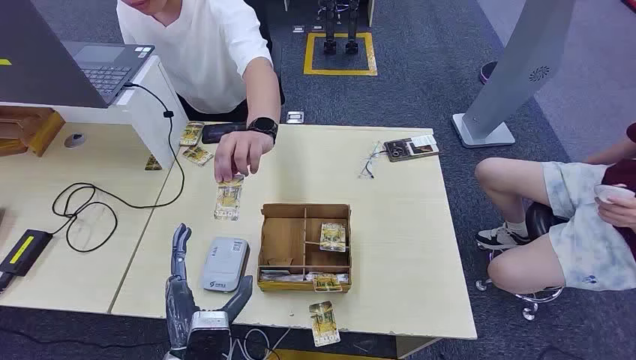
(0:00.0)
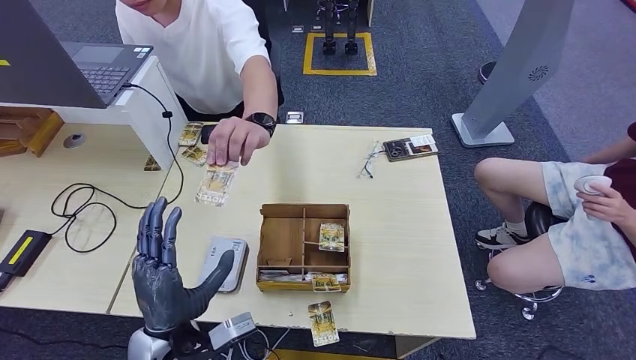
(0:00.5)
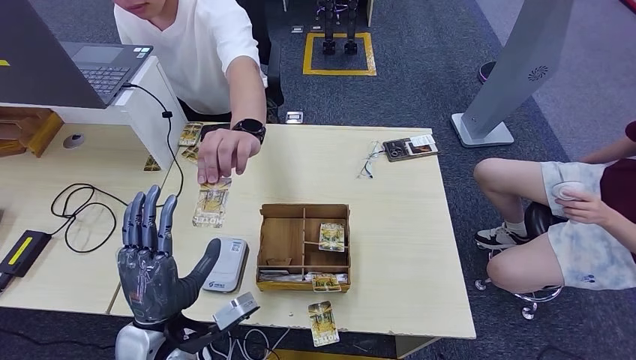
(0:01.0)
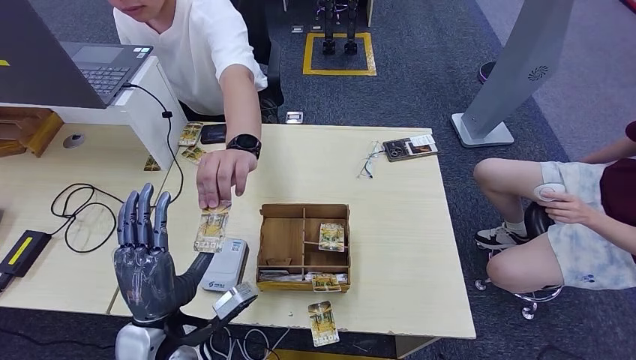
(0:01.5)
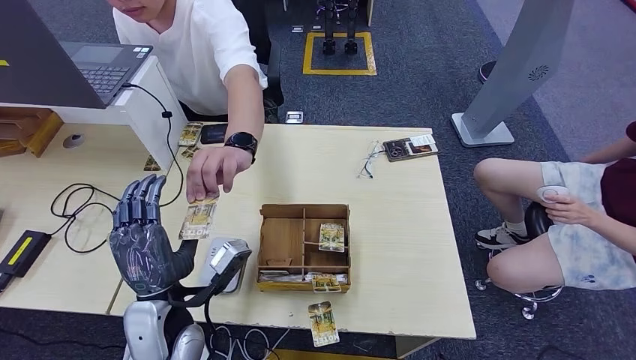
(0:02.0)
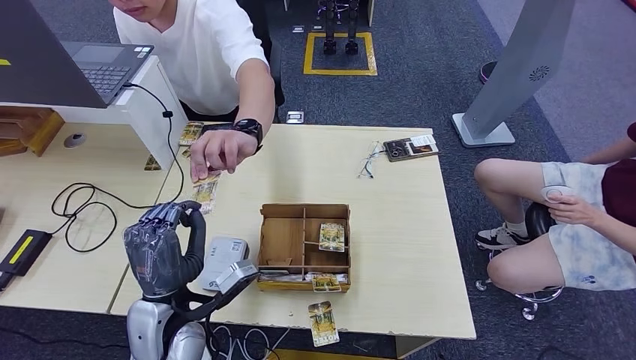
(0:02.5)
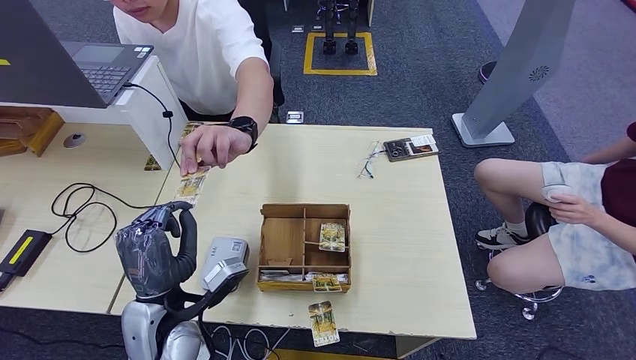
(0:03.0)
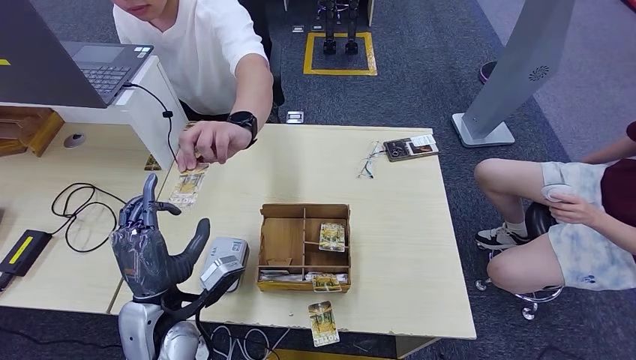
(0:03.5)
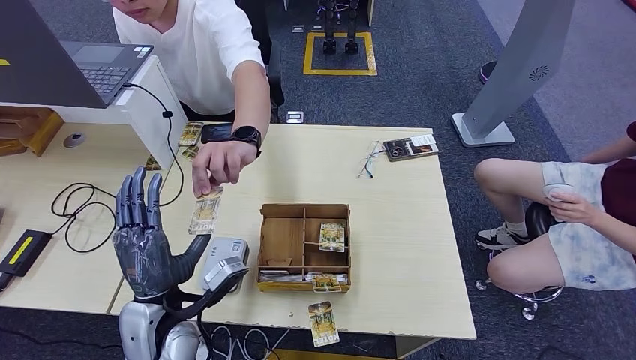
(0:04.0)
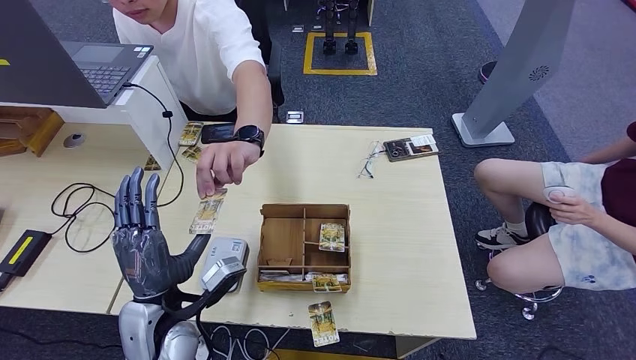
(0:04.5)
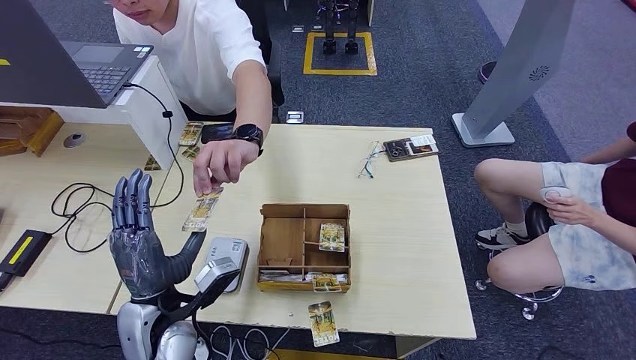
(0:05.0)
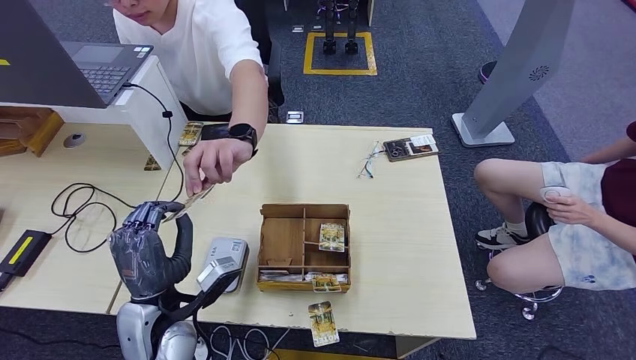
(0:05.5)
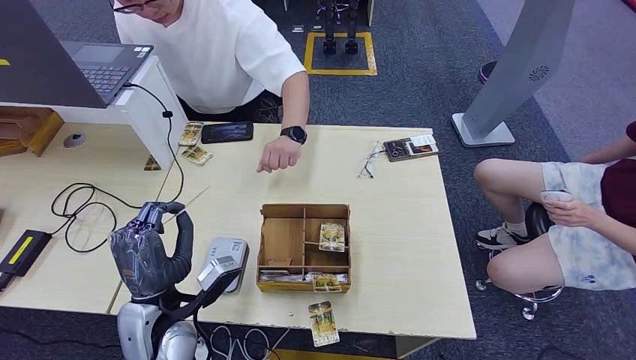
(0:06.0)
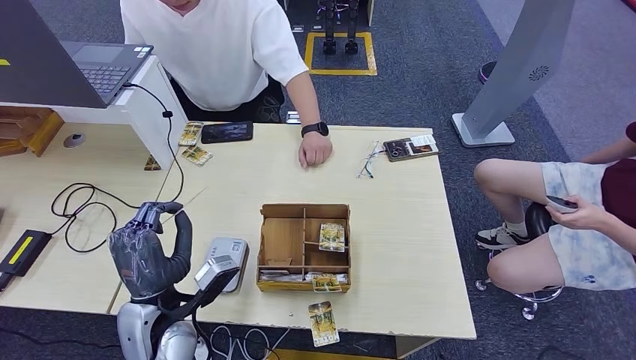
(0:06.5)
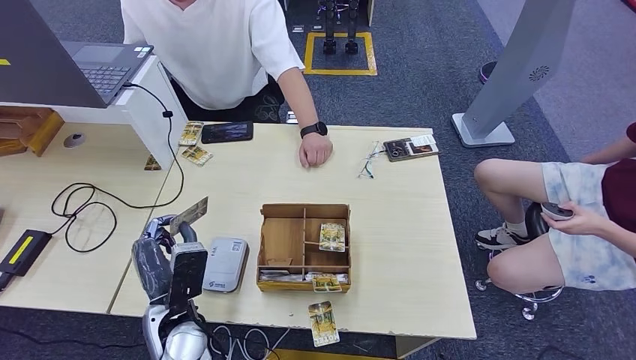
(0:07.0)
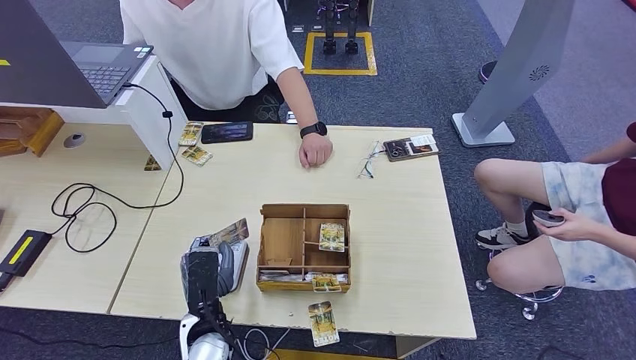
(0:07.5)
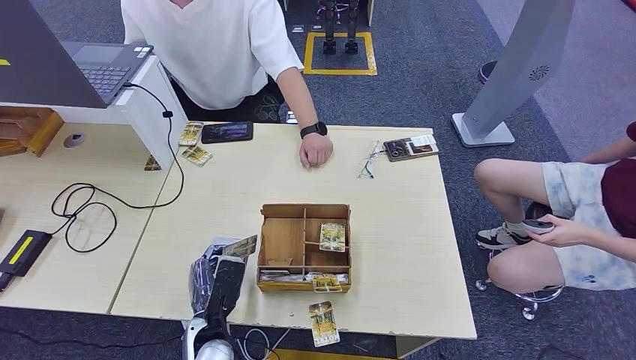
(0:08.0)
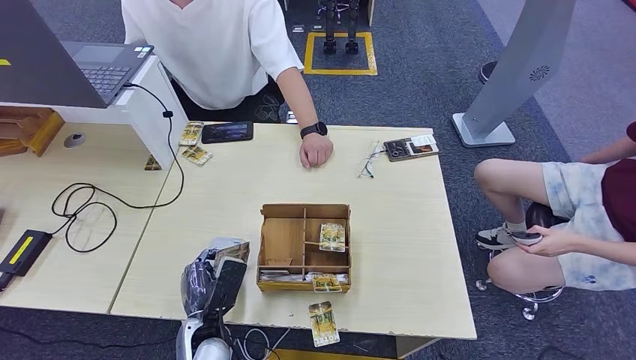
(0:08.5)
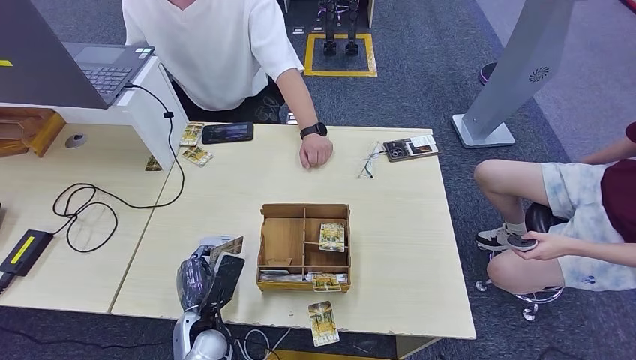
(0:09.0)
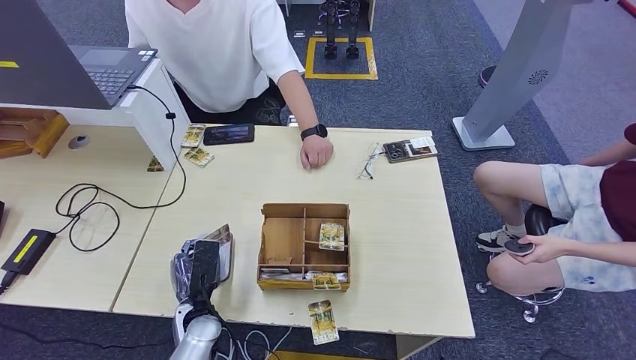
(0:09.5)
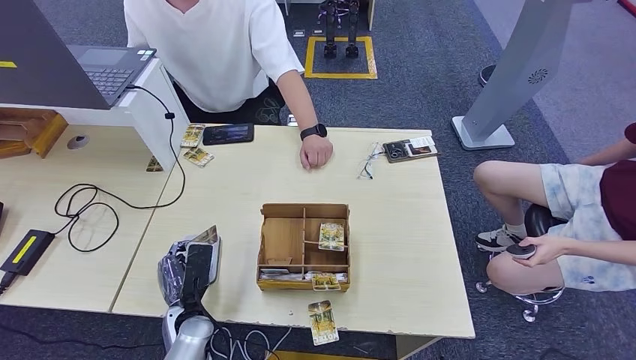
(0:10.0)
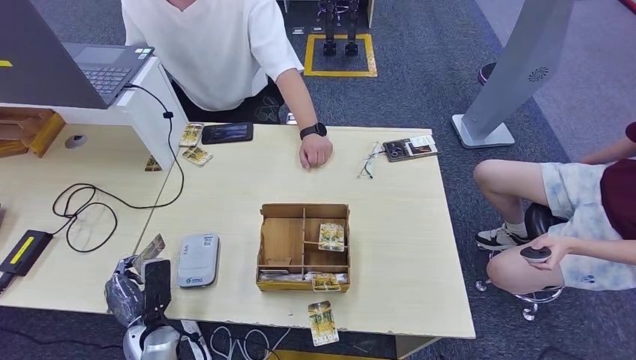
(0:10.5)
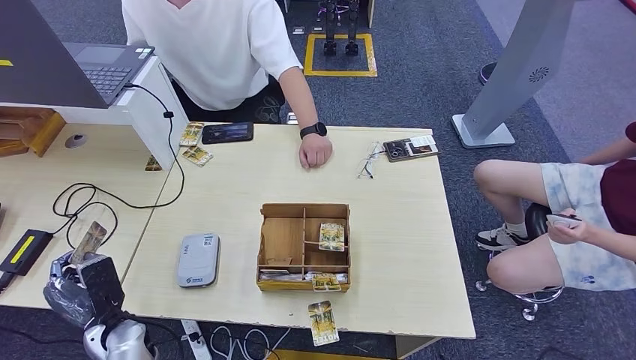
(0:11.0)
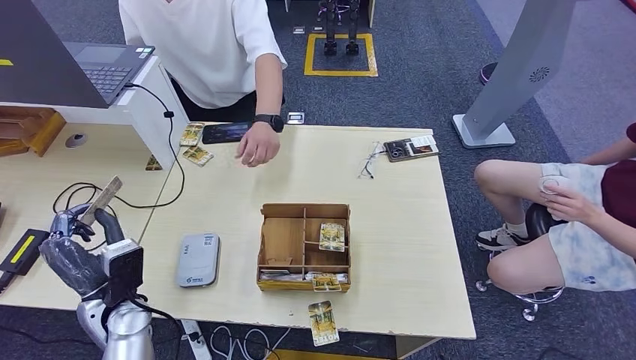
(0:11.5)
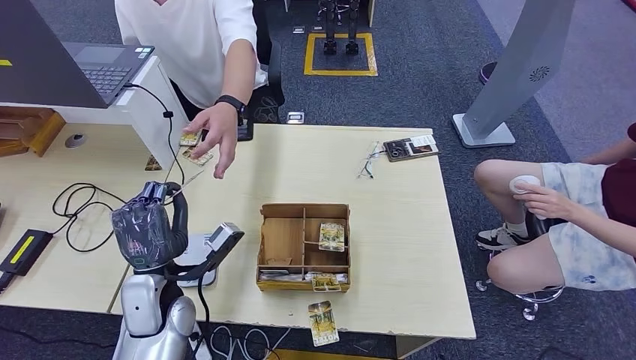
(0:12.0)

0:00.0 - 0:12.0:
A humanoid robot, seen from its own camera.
Step, 0:00.0 - 0:06.5: Take the ID card from the person's hand.
Step, 0:07.0 - 0:09.5: Place the ID card on the card reader.
0:02.0 - 0:06.0: There are only small adjustments of the hands.
0:06.0 - 0:08.0: The left hand heads downward and to the right, covering approximately 10 cm.
0:08.0 - 0:10.0: The left hand is displaced to the left by some 5 cm.
0:10.0 - 0:12.0: The left hand heads upward, covering approximately 15 cm.

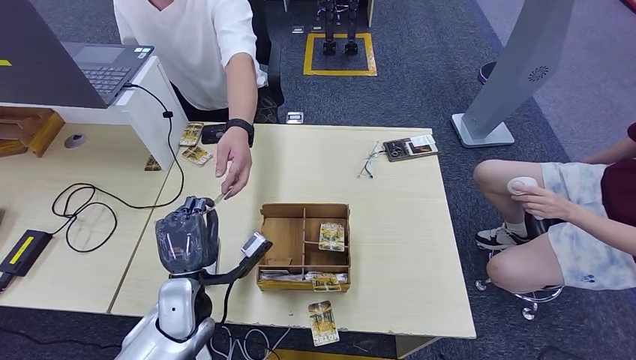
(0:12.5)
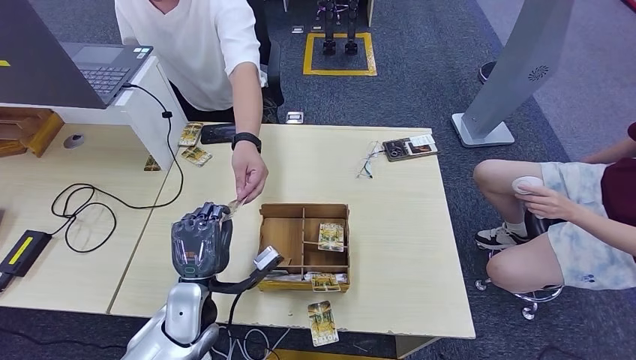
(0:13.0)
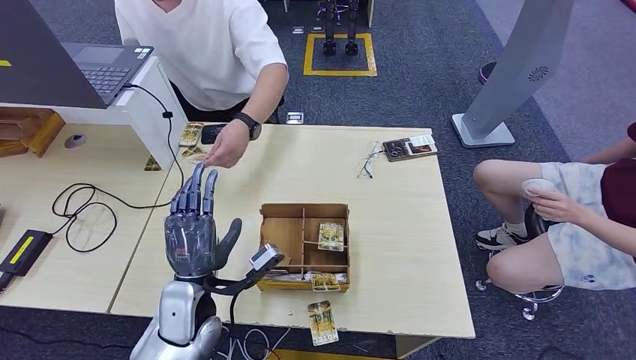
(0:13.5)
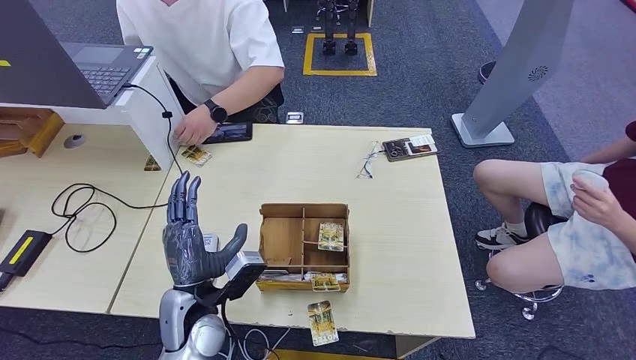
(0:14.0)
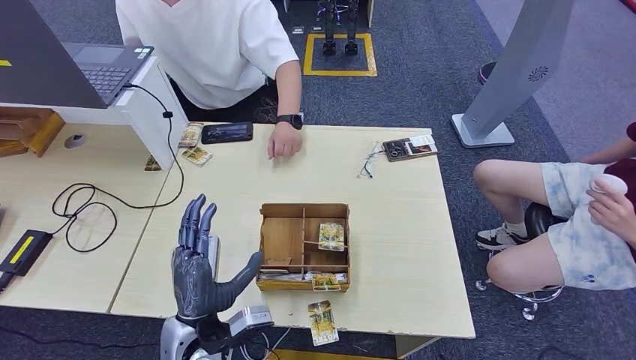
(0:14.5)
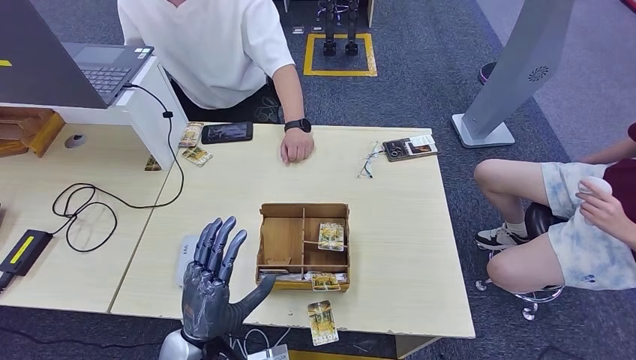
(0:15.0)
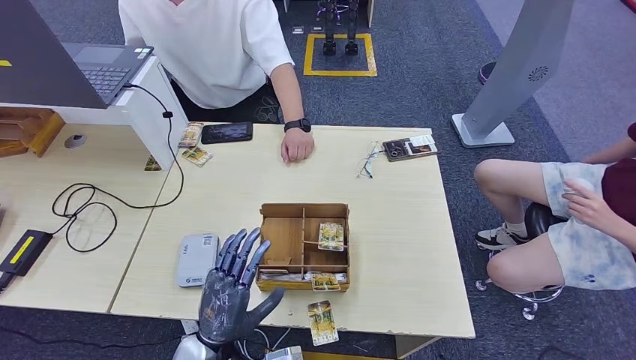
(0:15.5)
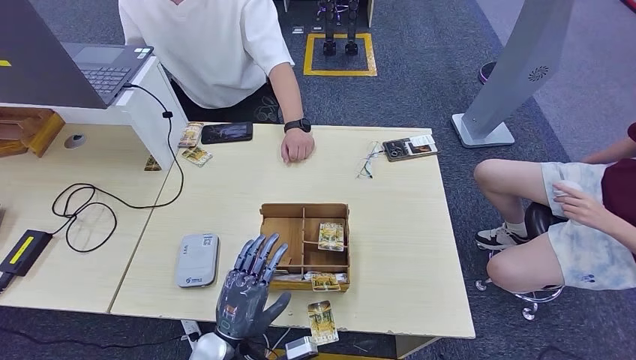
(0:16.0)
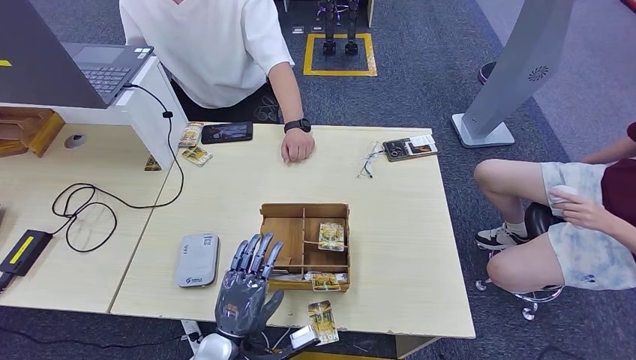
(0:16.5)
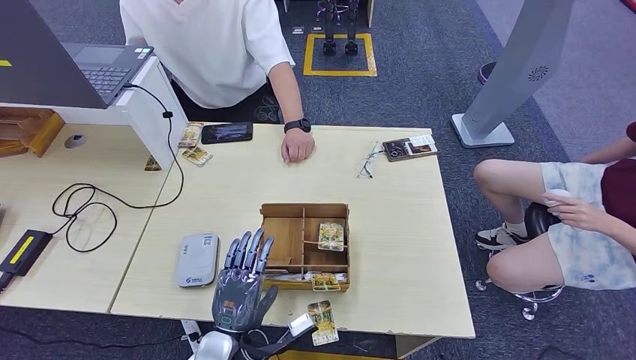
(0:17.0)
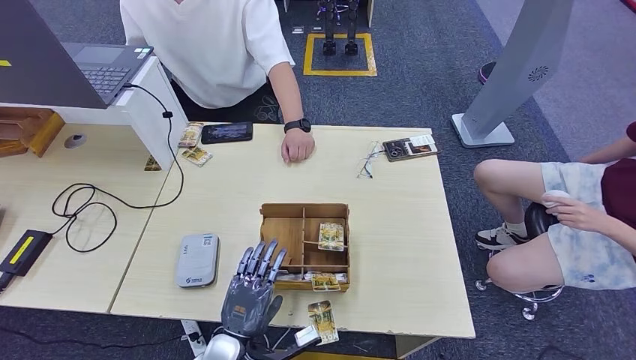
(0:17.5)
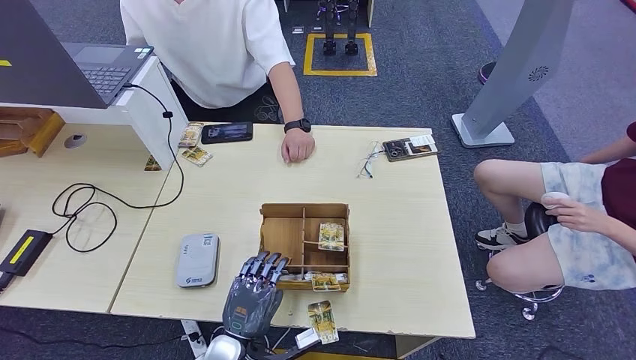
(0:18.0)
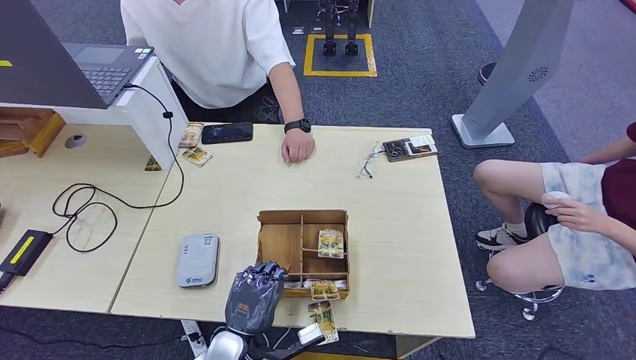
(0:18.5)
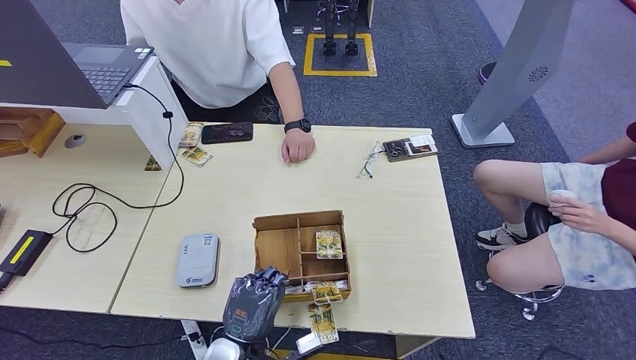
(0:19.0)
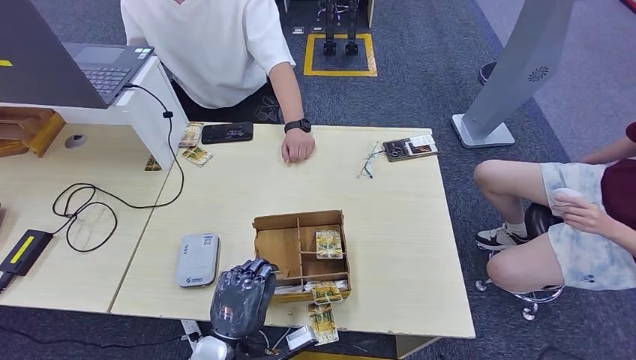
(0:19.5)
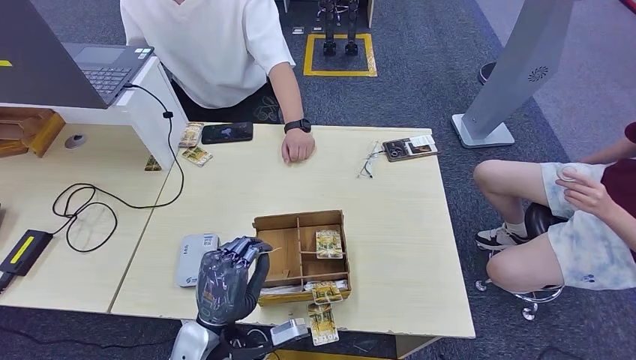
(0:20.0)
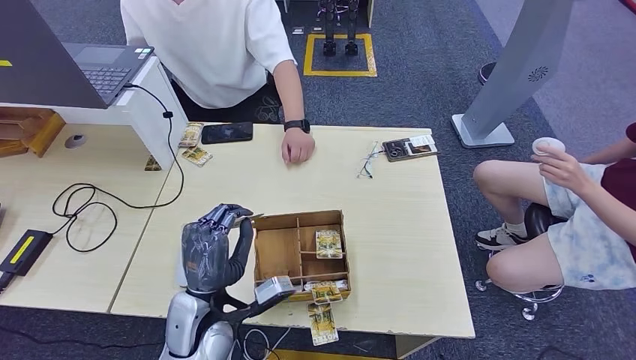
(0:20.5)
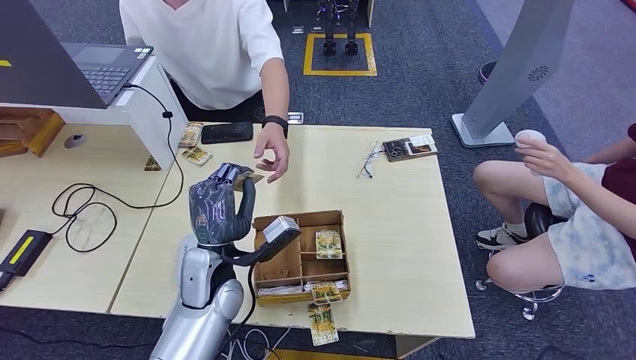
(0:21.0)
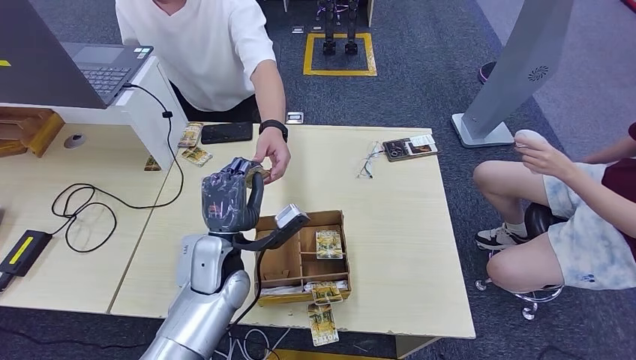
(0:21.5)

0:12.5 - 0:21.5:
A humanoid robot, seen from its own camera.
Step, 0:13.5 - 0:20.0: Pick up the room key from the key card box.
Step, 0:20.5 - 0:21.5: Hand the room key to the person.
0:12.5 - 0:14.5: The left hand moves backward, roughly 5 cm.
0:14.5 - 0:17.0: The left hand is displaced downward by some 5 cm.
0:17.0 - 0:19.5: There are only small adjustments of the hands.
0:19.5 - 0:21.5: The left hand heads forward and upward, covering about 15 cm.
